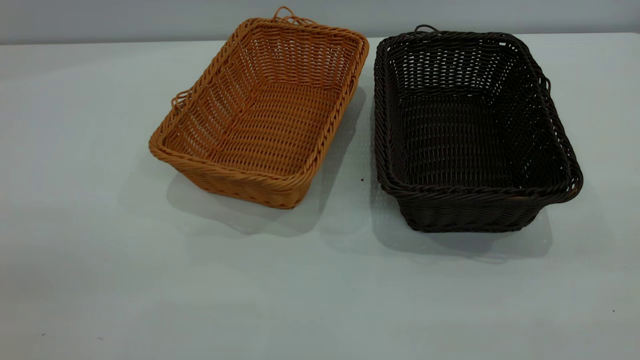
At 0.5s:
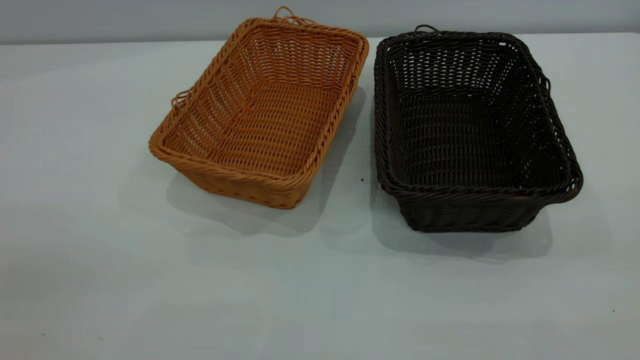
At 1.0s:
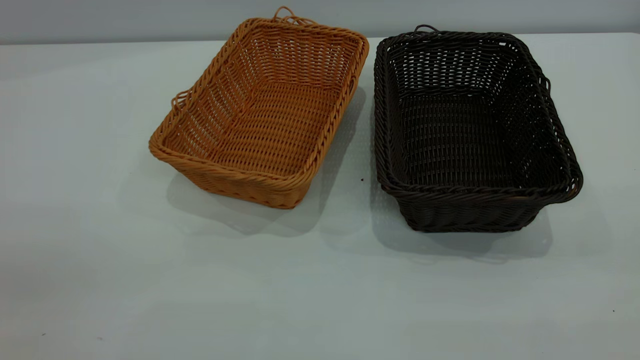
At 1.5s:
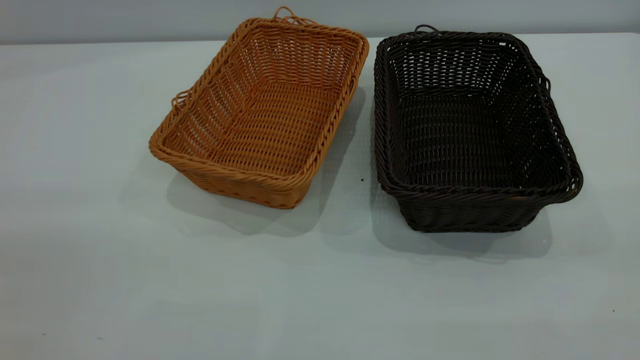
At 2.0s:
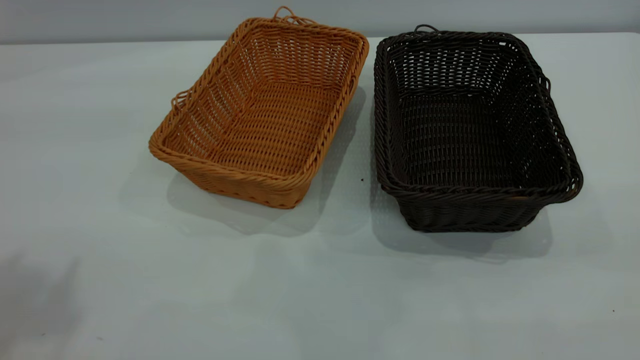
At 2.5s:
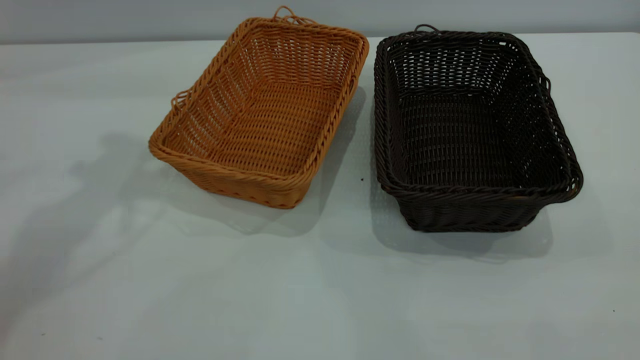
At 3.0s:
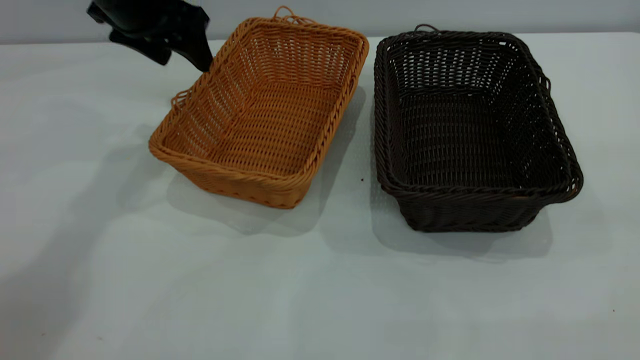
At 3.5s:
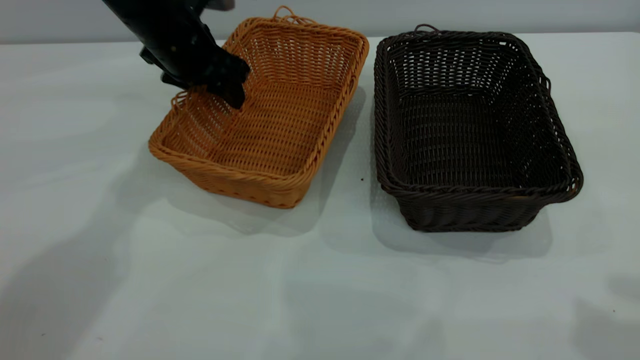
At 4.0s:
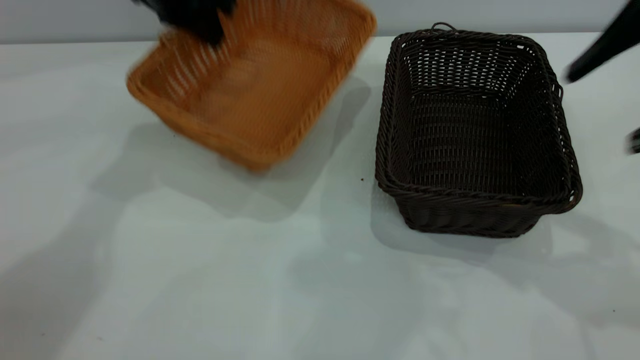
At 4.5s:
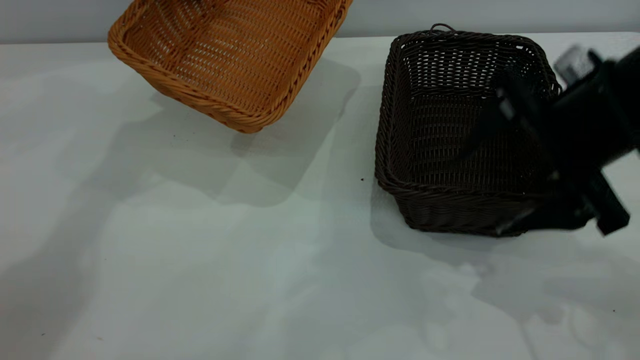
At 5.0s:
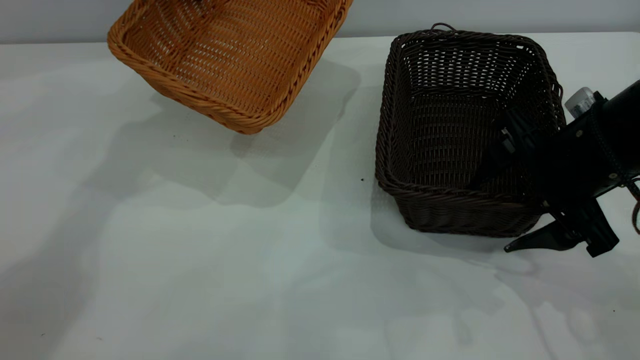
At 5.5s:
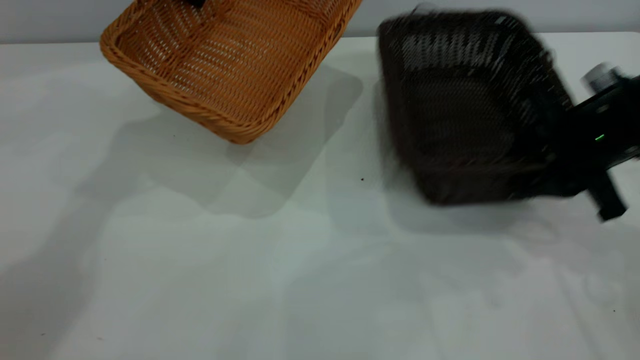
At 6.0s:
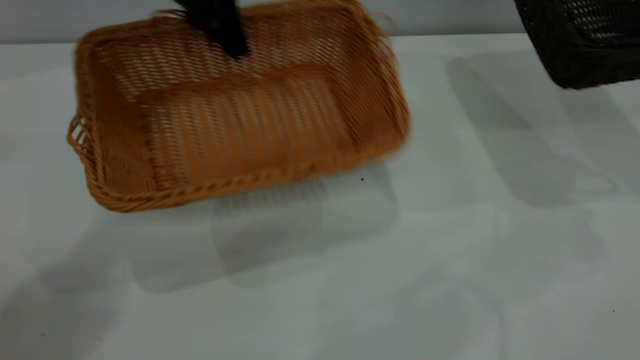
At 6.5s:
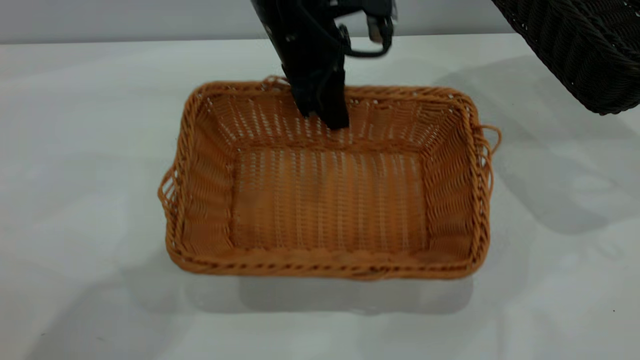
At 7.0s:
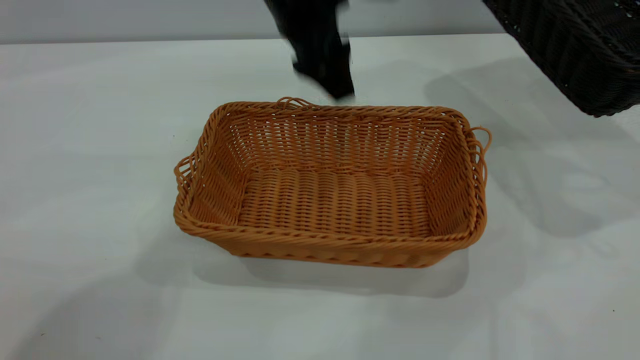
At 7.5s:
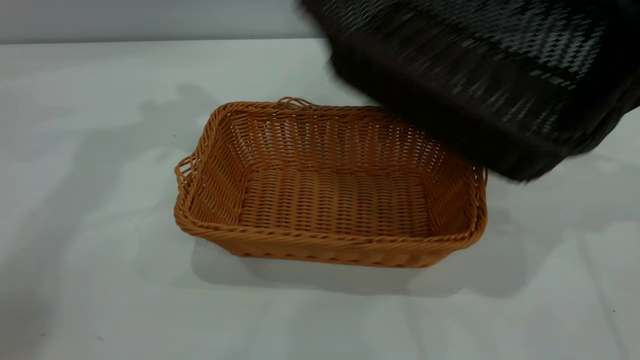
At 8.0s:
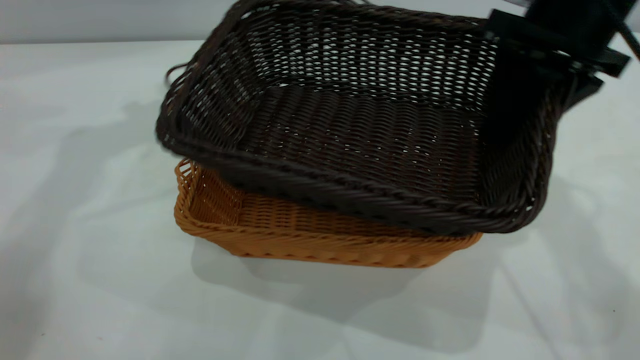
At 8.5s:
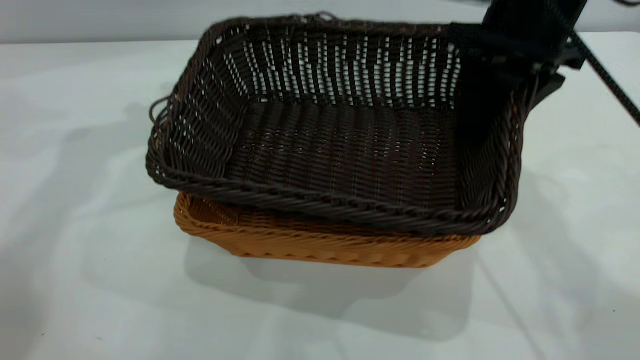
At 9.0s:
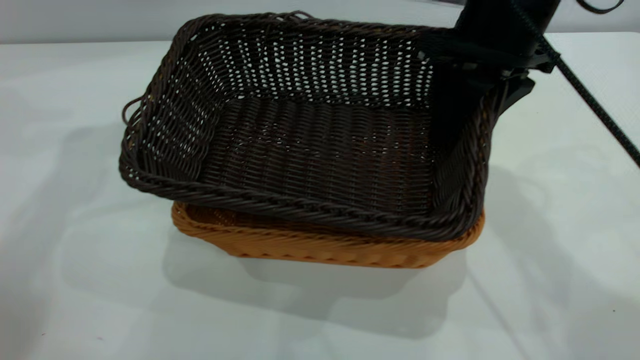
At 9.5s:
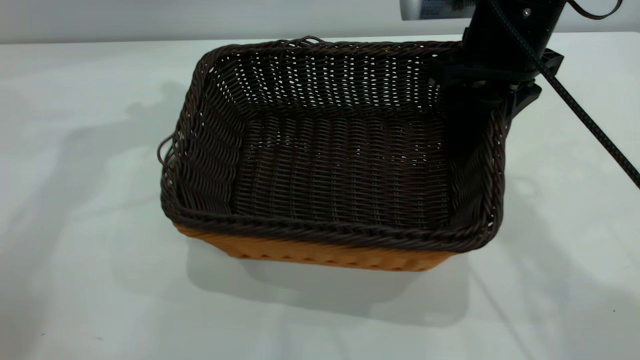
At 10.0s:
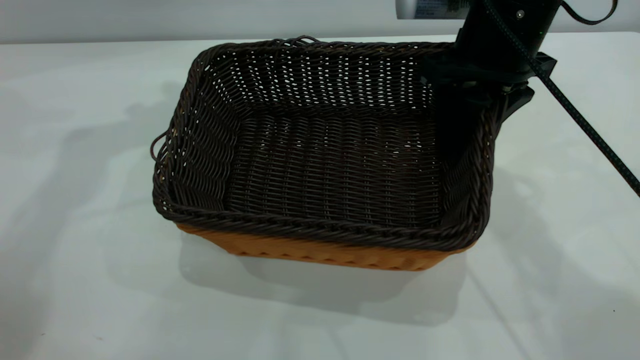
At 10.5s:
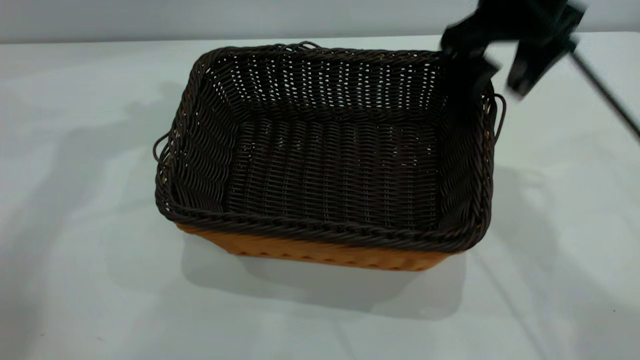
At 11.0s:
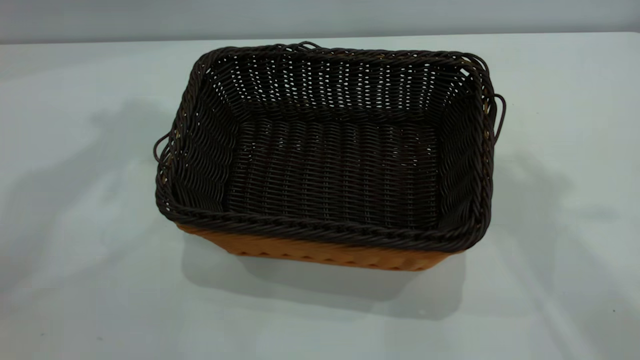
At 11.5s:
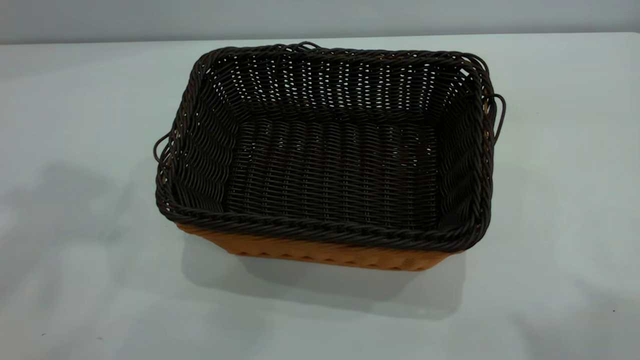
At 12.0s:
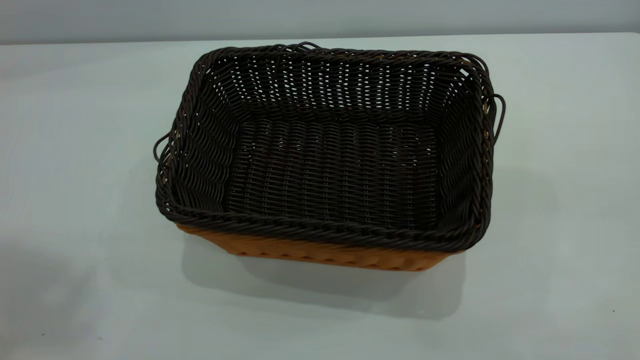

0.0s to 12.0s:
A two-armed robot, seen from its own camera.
Task of the whole recording: the left gripper grasp the brown basket and place it in the center of the table, the right gripper grasp the black basket and place it inside the brown one.
Step, 0.0s to 5.5s: Pick up the light basket with the right gripper.
Step, 6.0s to 7.0s: Place the light-colored basket in the center.
Step, 7.5s to 10.5s: Place the dark basket on top of the light basket.
2.0s to 4.0s: The right gripper travels forward by some 25 cm; the left gripper is displaced forward and downward by some 35 cm, and closes.
4.0s to 6.0s: The left gripper goes roughly 10 cm to the right and backward. The right gripper heads to the right and forward, covering approximately 20 cm, and closes.
6.0s to 8.0s: The right gripper heads to the left, covering some 20 cm, while the left gripper goes roughly 15 cm to the left and upward, and opens up.
8.0s to 10.0s: The right gripper shifts by some 5 cm.
10.0s to 12.0s: Both grippers travel together backward and upward, approximately 40 cm. The right gripper opens up.
